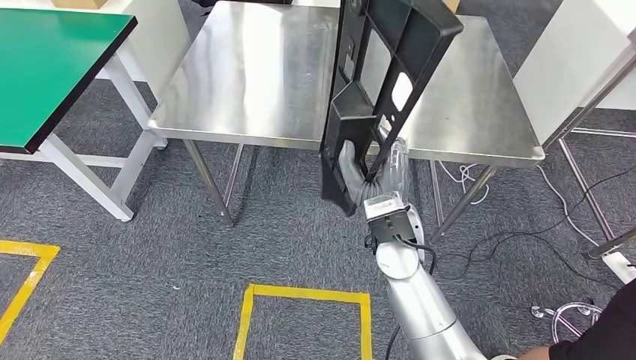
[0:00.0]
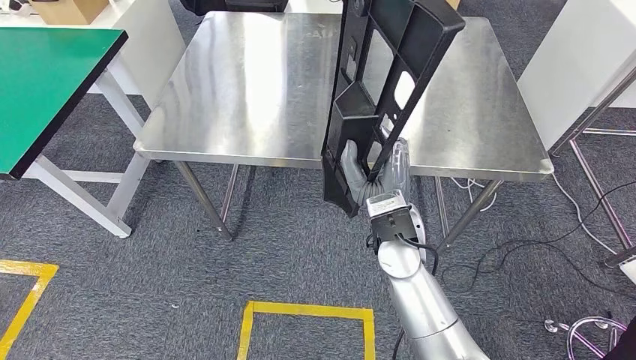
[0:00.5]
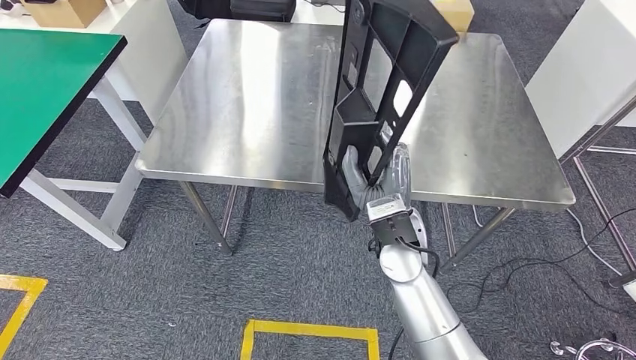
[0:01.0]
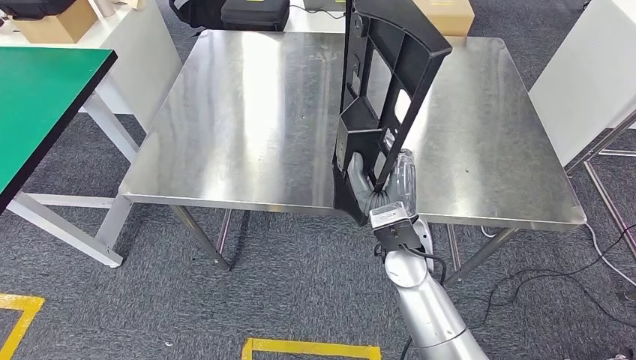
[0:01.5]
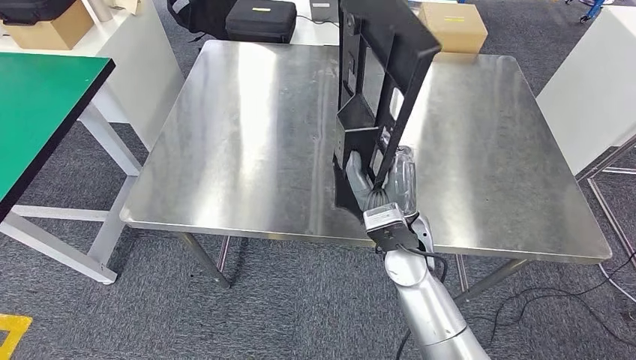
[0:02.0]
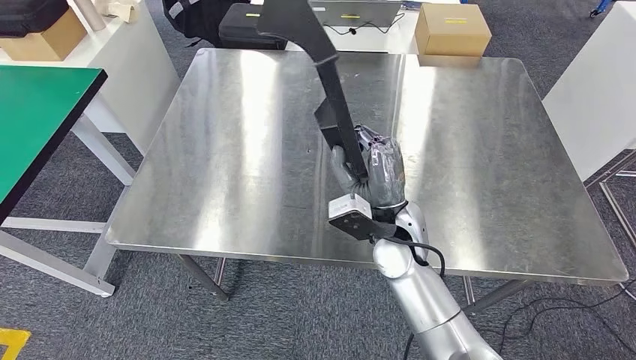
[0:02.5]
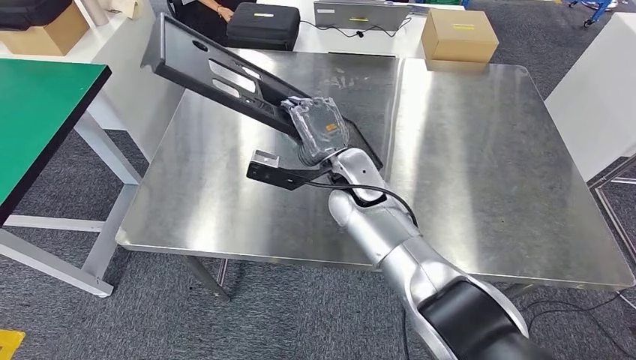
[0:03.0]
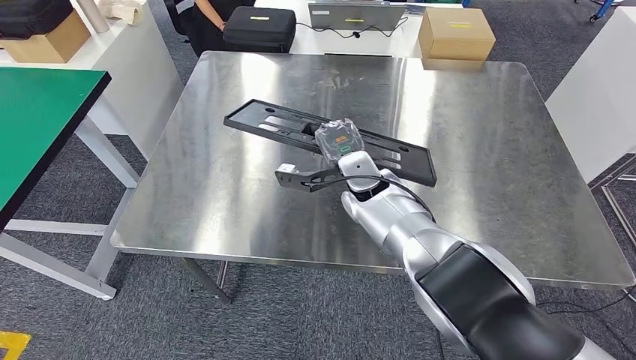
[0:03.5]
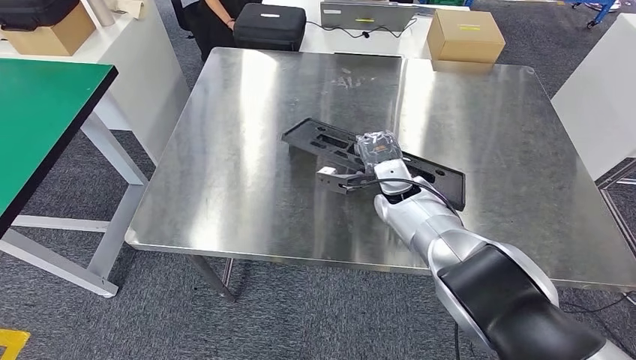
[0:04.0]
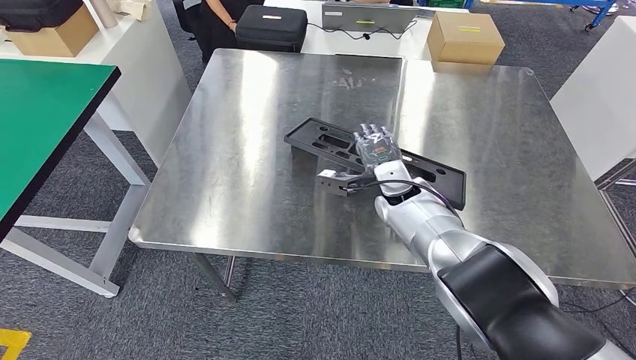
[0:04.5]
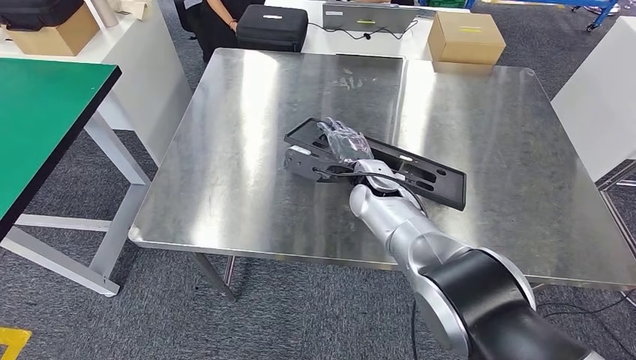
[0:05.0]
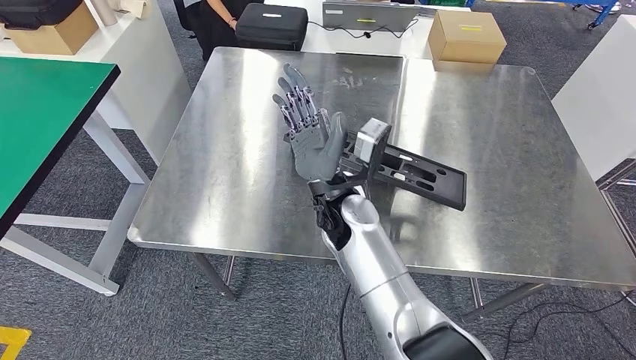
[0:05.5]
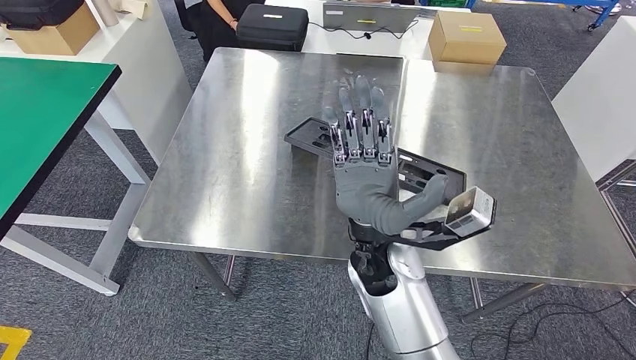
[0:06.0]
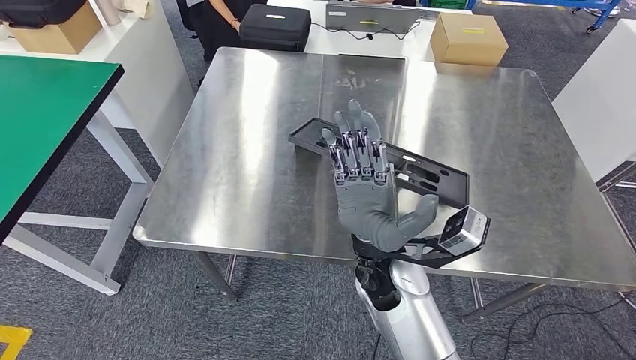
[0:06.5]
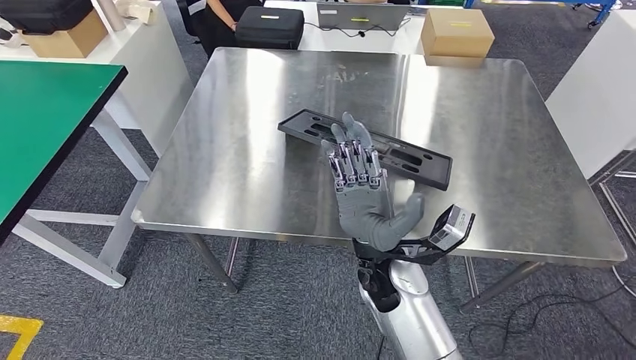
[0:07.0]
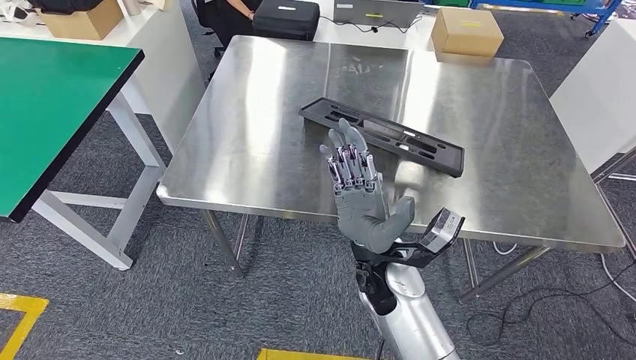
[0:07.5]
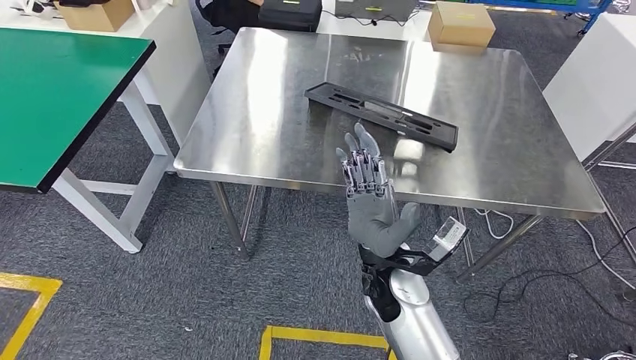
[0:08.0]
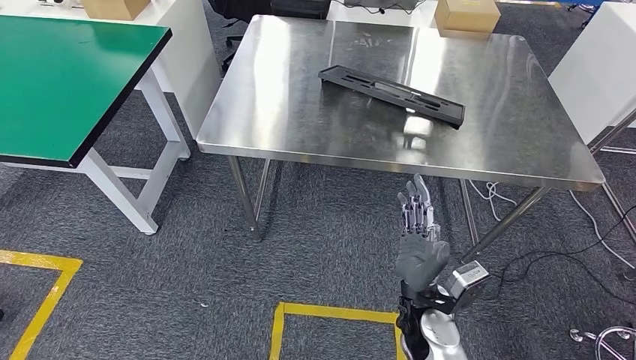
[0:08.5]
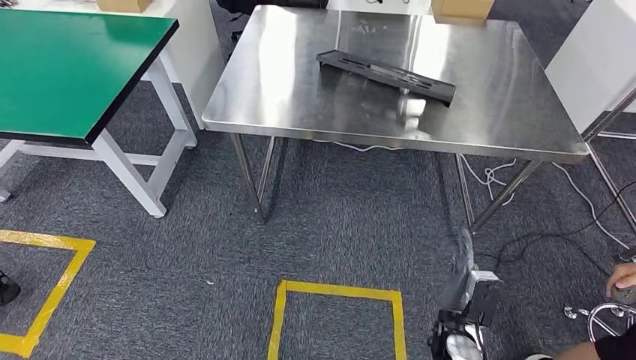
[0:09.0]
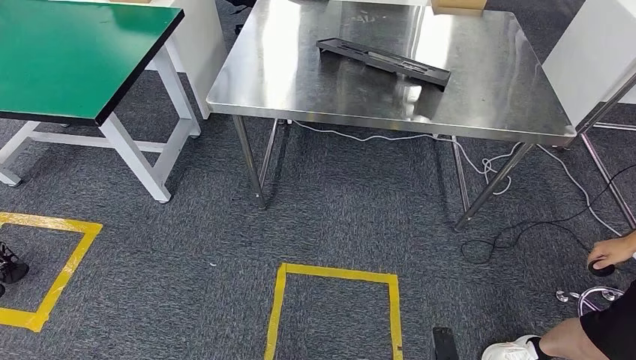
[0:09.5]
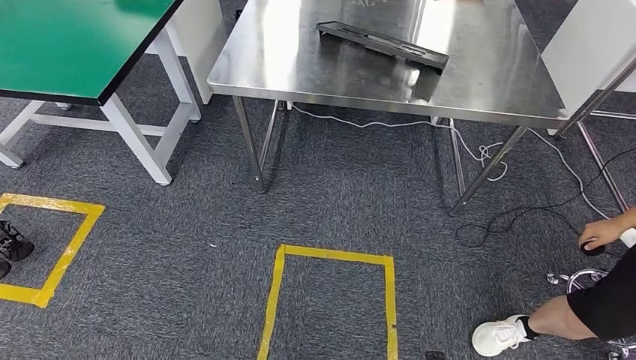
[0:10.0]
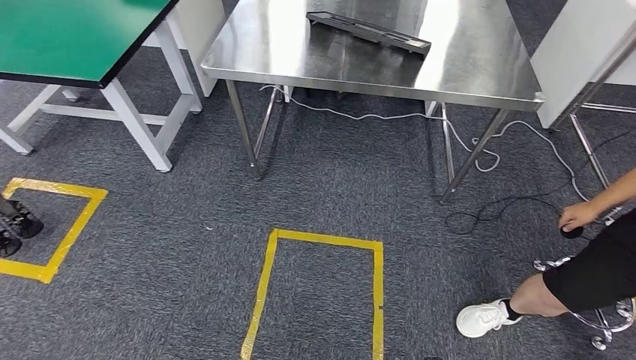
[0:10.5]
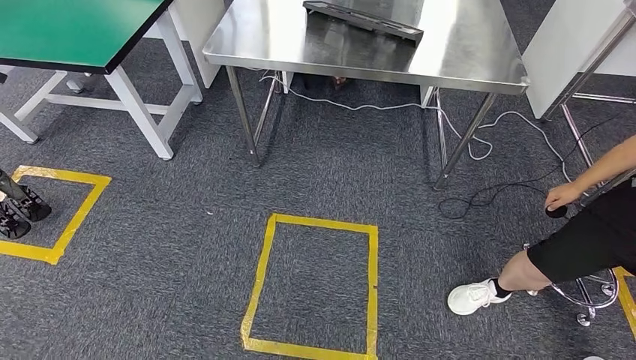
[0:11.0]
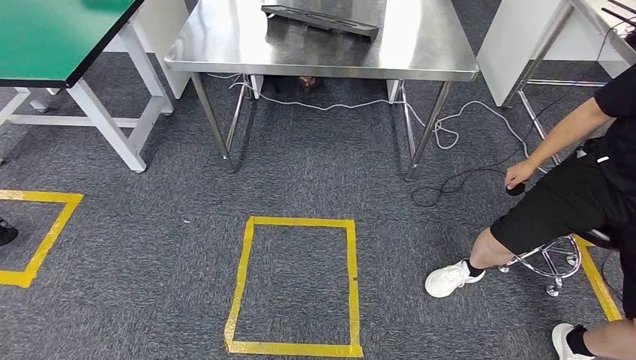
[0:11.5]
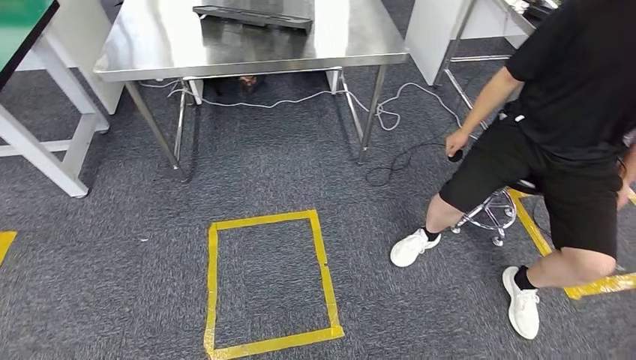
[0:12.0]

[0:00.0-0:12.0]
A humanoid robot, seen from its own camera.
Step, 0:00.0 to 0:04.5: Insert the large material into the corresponding slot on the workbench.
0:04.0 to 0:06.0: The right hand heads backward, to the left and upward, covering some 20 cm.

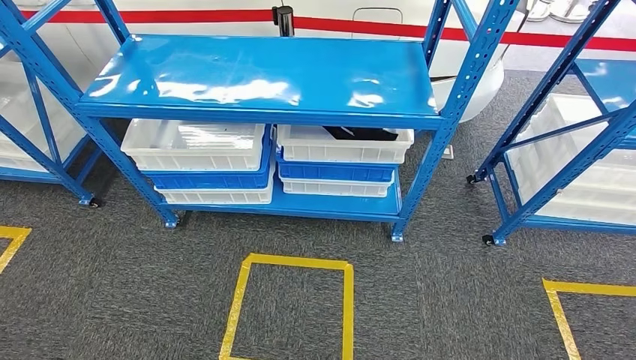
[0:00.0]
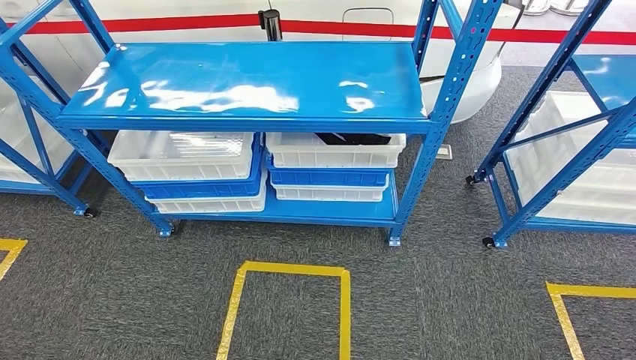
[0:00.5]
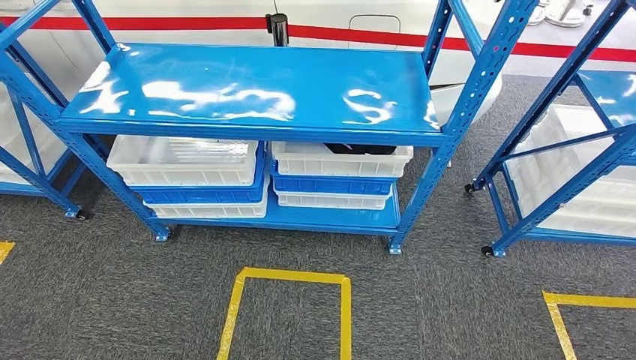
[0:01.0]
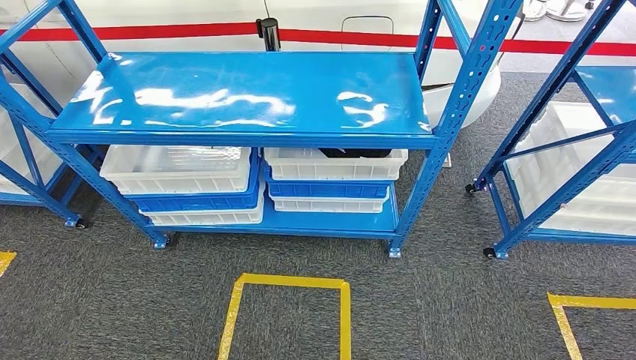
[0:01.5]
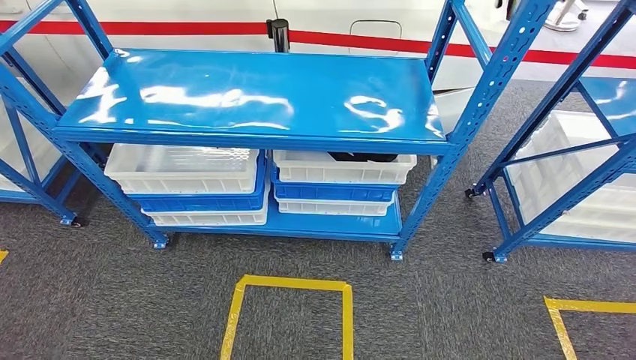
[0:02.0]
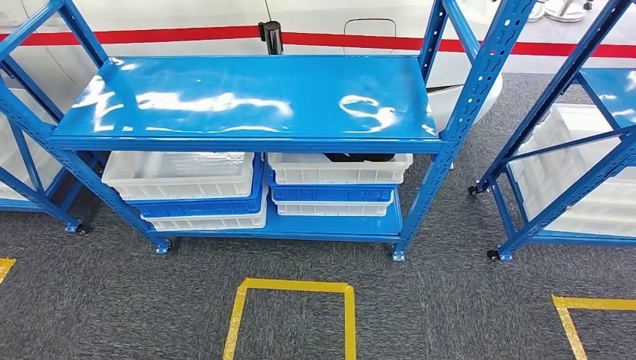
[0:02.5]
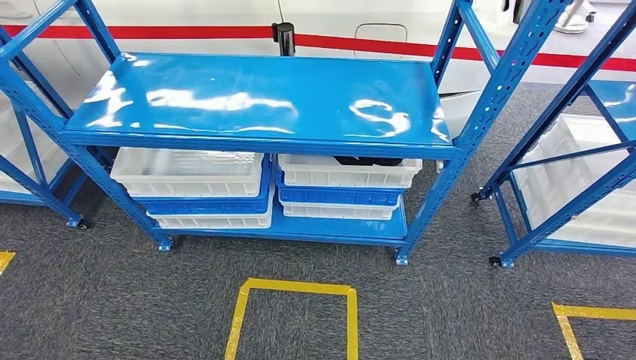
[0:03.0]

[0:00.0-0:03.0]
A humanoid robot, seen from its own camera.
Step, 0:00.0 to 0:03.0: Move to the initial position of the shelf.
